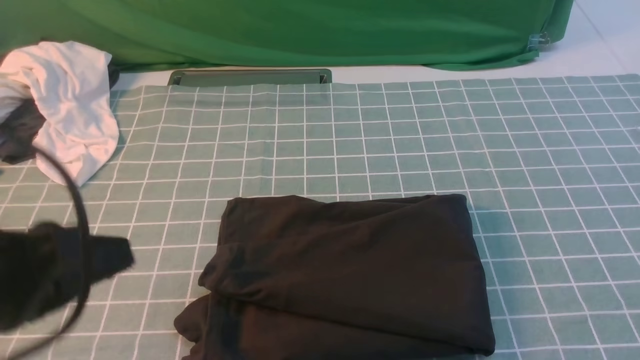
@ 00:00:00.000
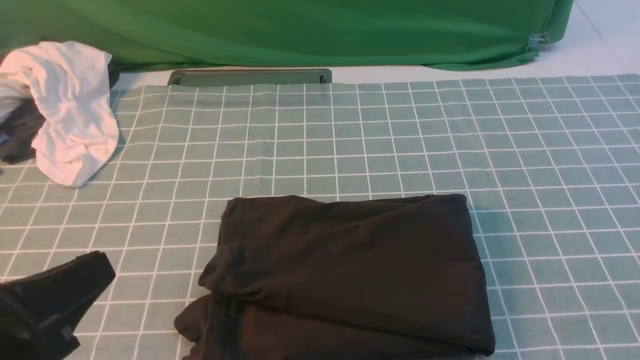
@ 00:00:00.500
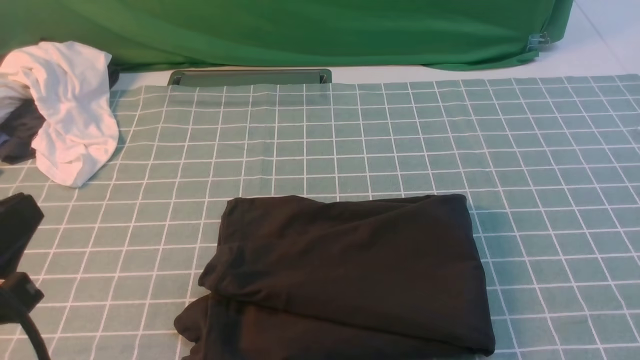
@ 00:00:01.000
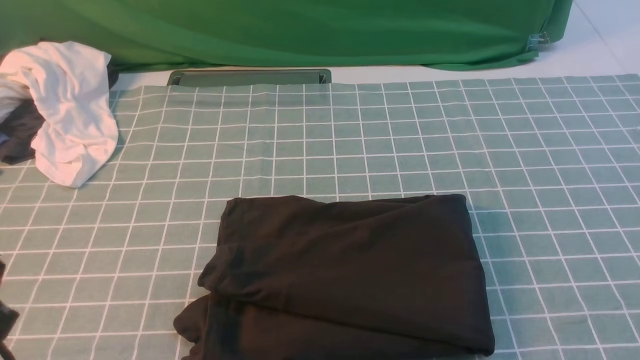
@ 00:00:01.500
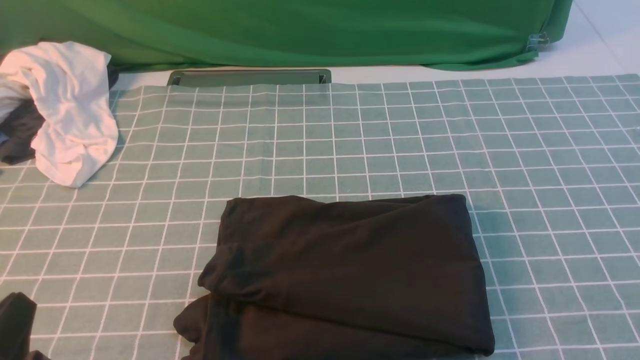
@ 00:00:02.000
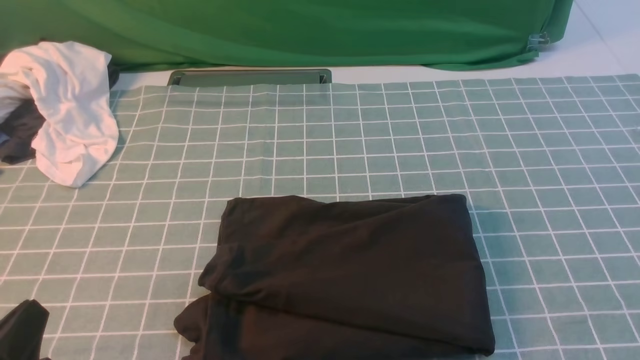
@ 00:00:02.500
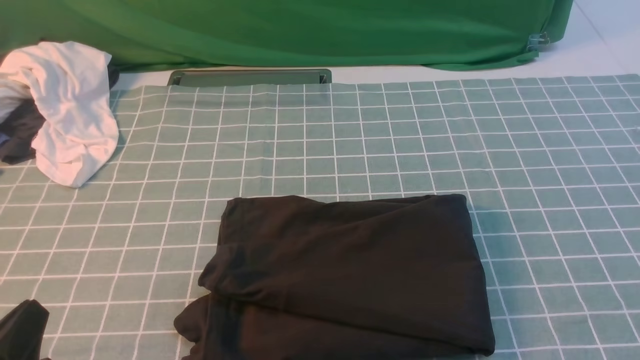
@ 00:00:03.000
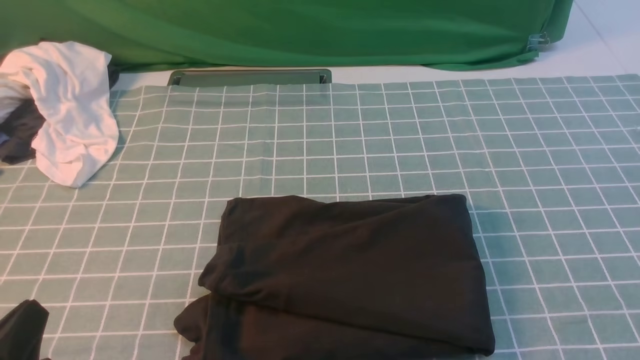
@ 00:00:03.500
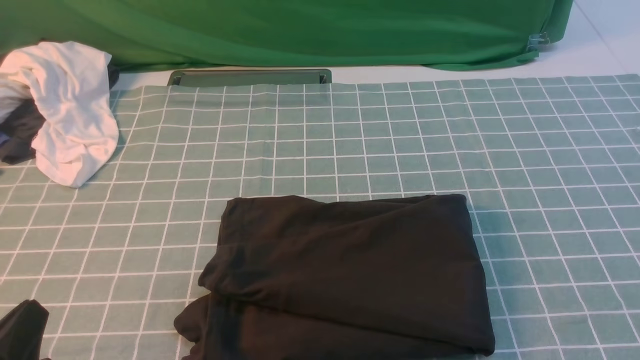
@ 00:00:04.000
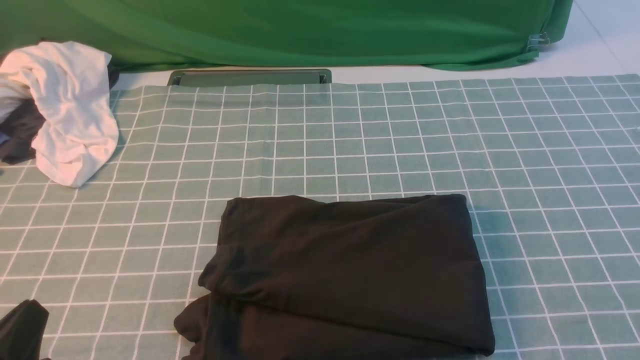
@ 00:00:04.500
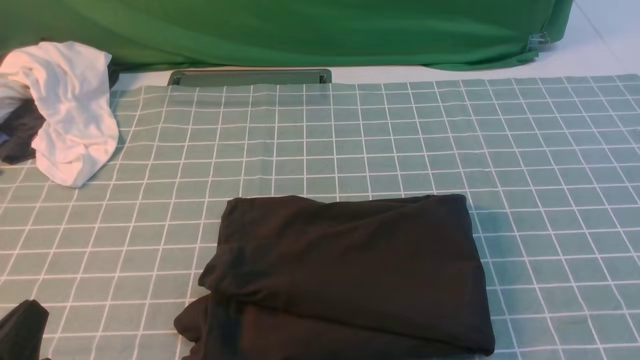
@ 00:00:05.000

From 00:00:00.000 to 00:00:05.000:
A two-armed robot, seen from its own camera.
From 00:00:00.000 to 00:00:02.500: The left gripper shifts some 15 cm downward and backward.
From 00:00:02.500 to 00:00:05.000: Both grippers stay put.

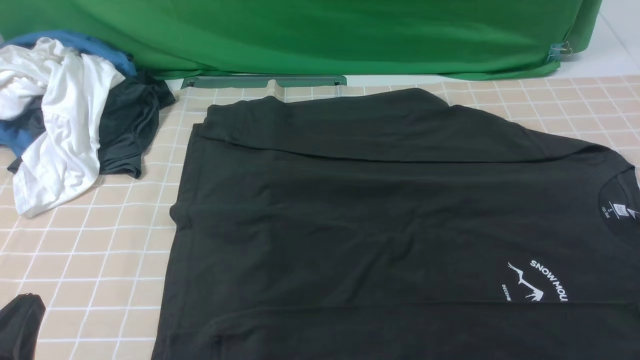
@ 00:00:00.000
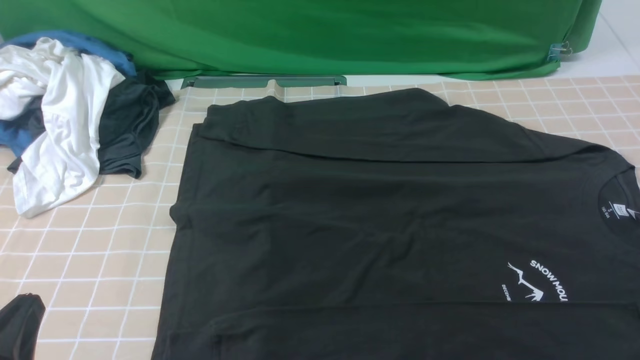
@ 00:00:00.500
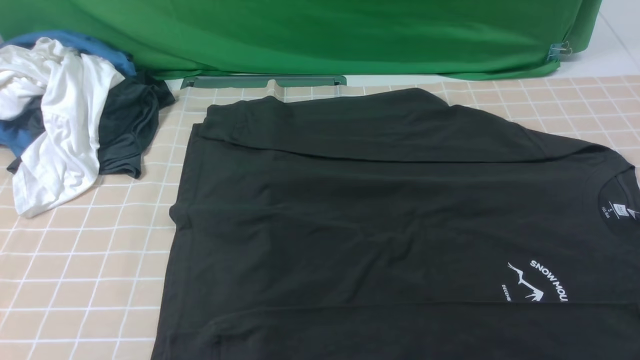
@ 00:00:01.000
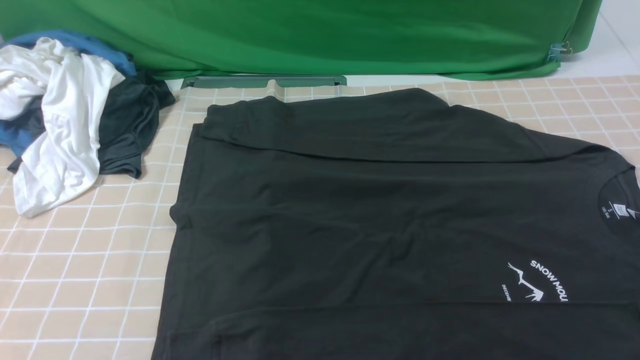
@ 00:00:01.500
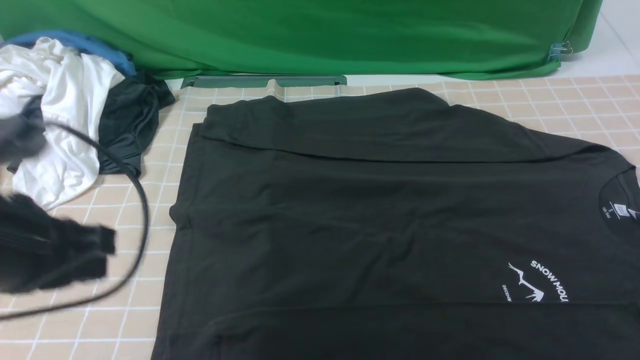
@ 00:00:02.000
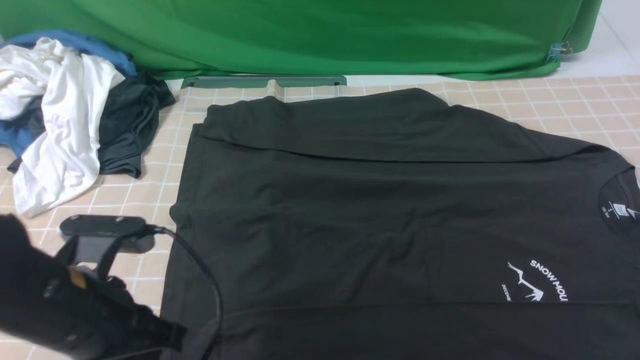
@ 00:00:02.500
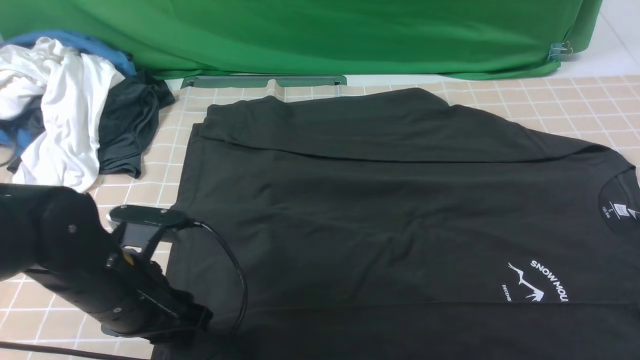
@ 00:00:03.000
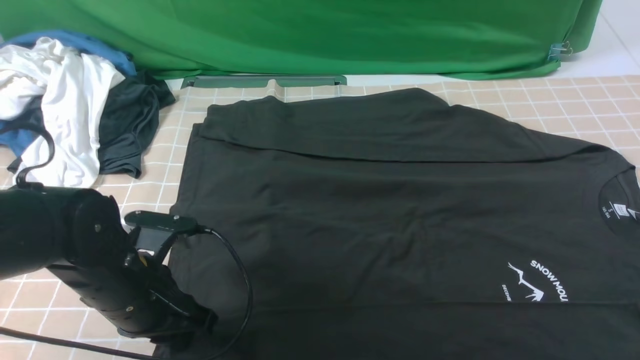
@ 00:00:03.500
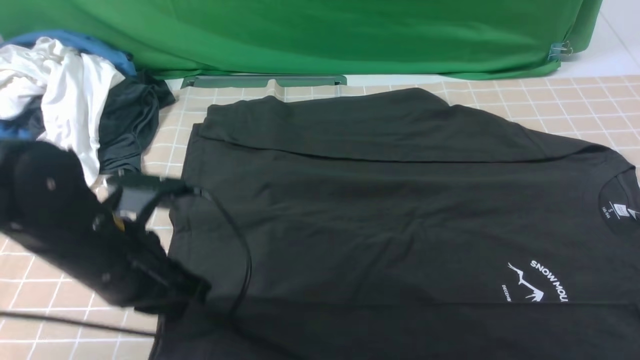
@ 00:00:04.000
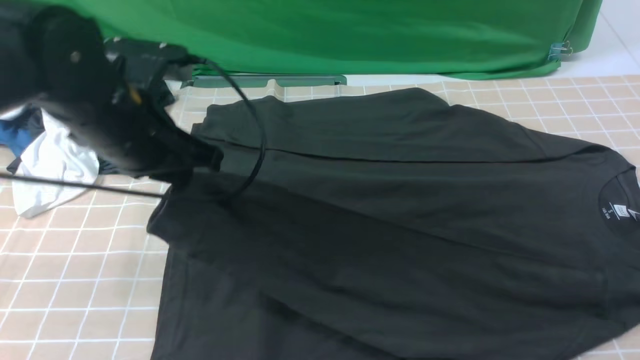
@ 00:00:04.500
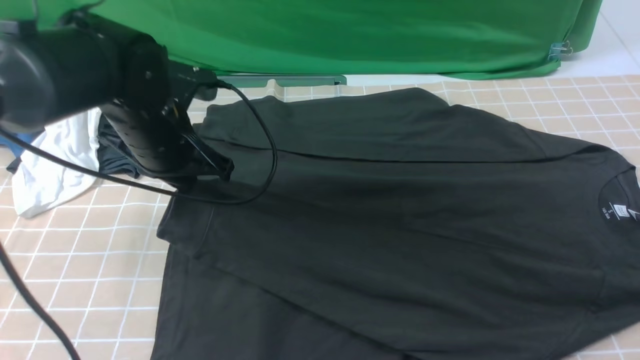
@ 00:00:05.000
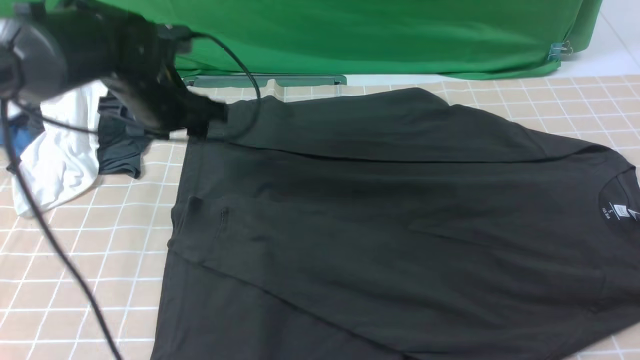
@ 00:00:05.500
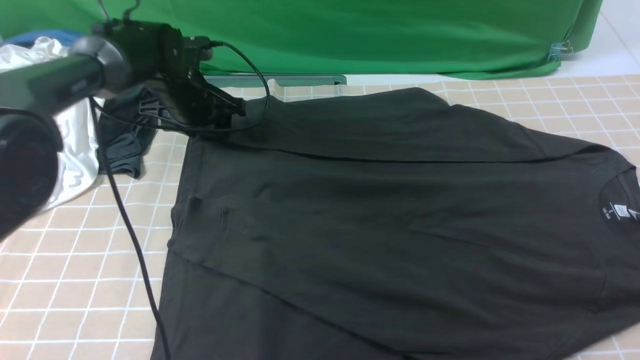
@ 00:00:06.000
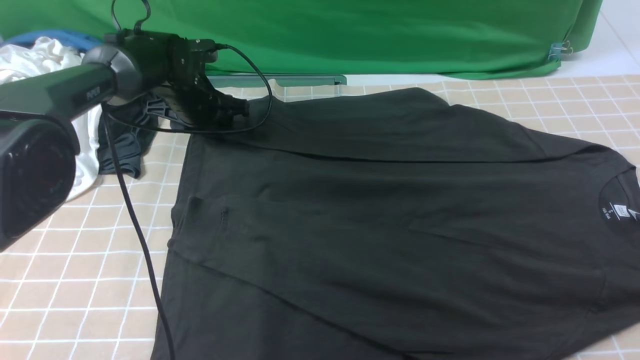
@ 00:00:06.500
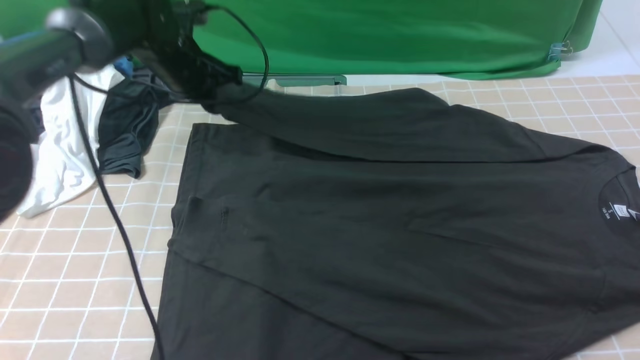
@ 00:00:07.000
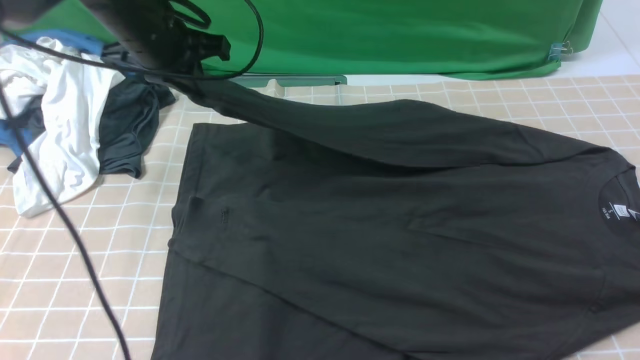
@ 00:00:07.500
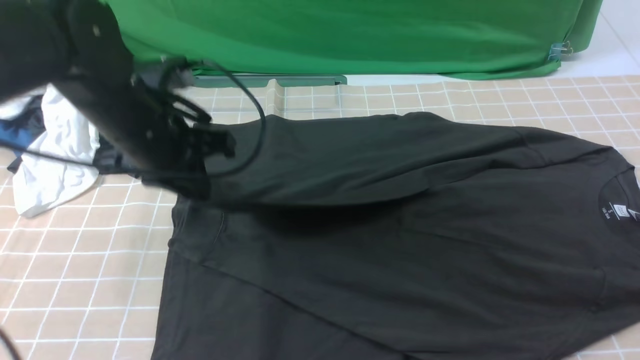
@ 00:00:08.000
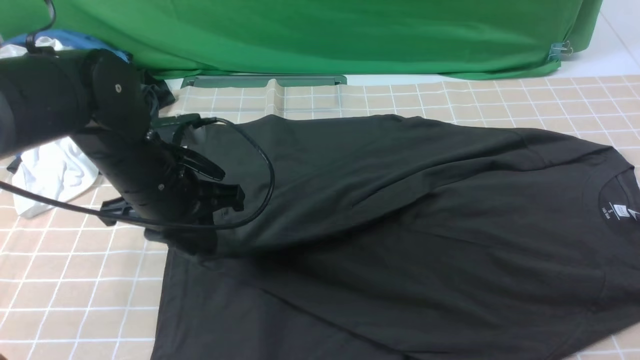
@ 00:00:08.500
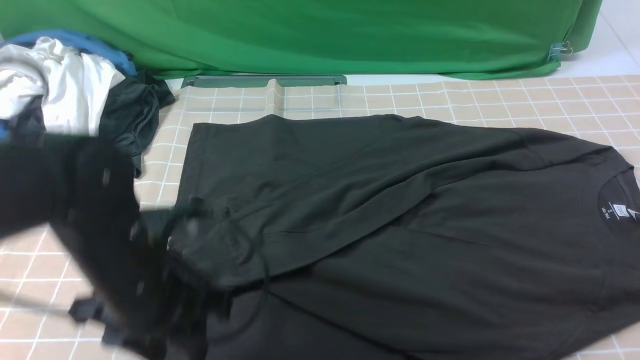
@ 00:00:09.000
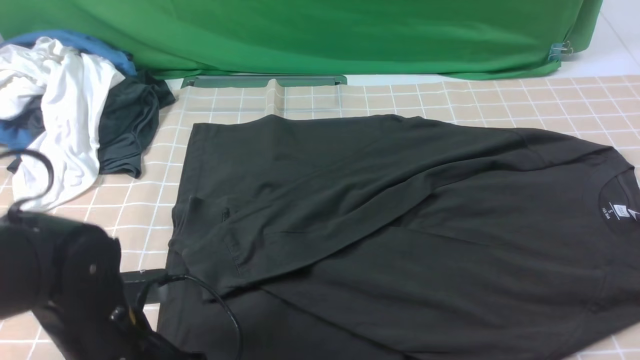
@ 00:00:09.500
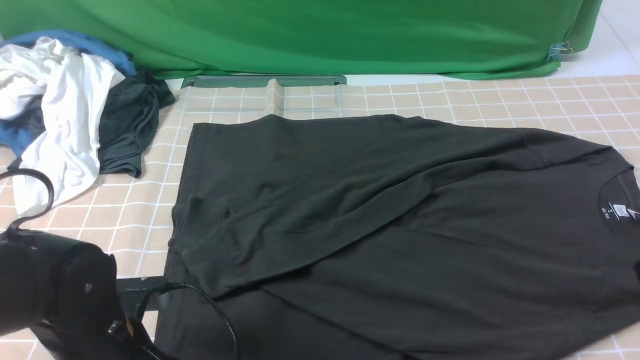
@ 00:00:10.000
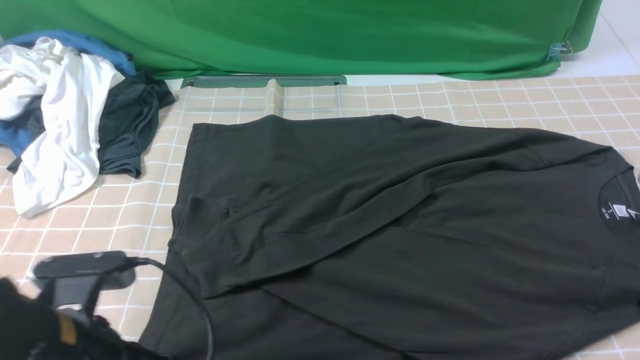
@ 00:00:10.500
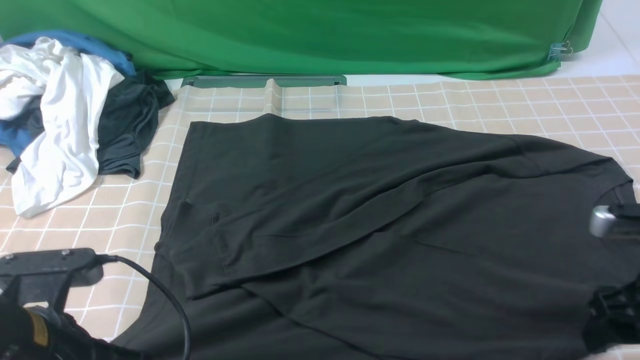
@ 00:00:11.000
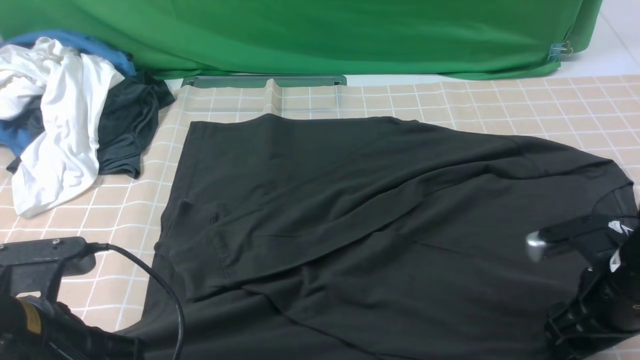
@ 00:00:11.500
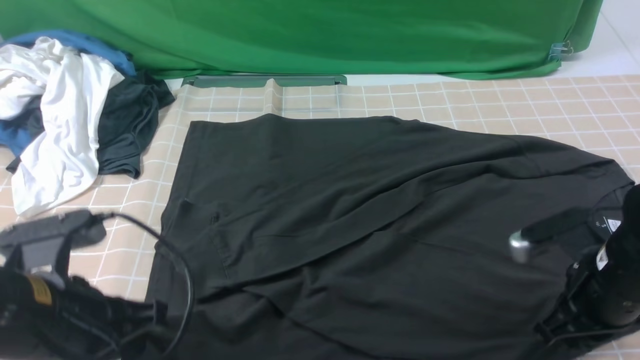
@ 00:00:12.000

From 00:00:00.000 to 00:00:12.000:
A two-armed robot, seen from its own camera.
Step, from 00:00:00.000 to 00:00:03.500: use the left arm to clamp the cuff closest to it.
Step, from 00:00:04.000 to 00:00:05.000: use the left arm to drag and place the cuff at the centered position on the left edge of the fabric.
Step, from 00:00:05.500 to 00:00:06.500: use the left arm to clamp the cuff farthest from it.
Step, from 00:00:07.000 to 00:00:08.500: use the left arm to drag and drop the cuff onto the cuff closest to the left arm.
Step, from 00:00:09.000 to 00:00:11.500: use both arms simultaneously to clamp the lower edge of the clothing fabric.
From 00:00:00.000 to 00:00:02.000: The left gripper is displaced forward and upward by some 15 cm.
From 00:00:02.000 to 00:00:04.000: The left gripper moves downward, forward and to the right, roughly 10 cm, and opens, then closes once more.
From 00:00:04.000 to 00:00:06.000: The left gripper heads forward, covering roughly 25 cm, and opens.
From 00:00:06.000 to 00:00:08.000: The left gripper shifts about 20 cm backward and upward, and closes up.
From 00:00:08.000 to 00:00:10.000: The right gripper changes place by some 5 cm; the left gripper heads backward and downward, covering approximately 20 cm, and opens, then closes again.
From 00:00:10.000 to 00:00:12.000: The right gripper is displaced downward and forward by roughly 15 cm, and opens, then closes once more; the left gripper is displaced upward by approximately 10 cm.

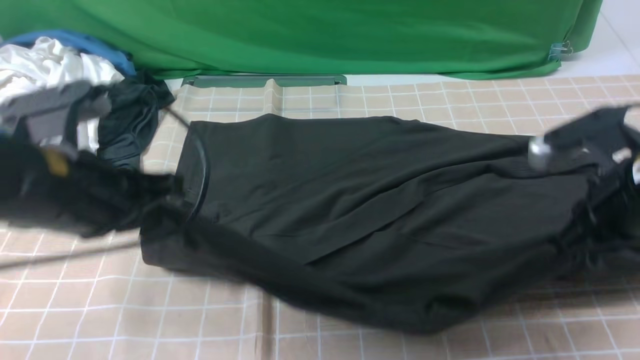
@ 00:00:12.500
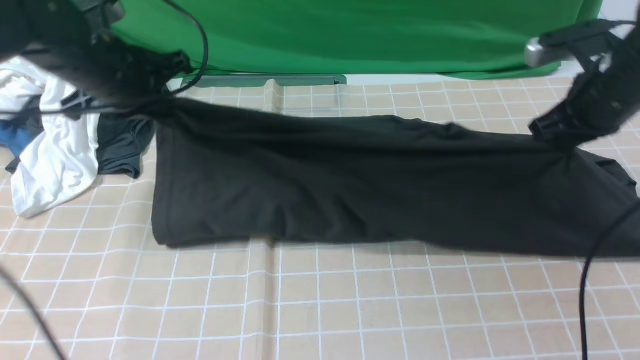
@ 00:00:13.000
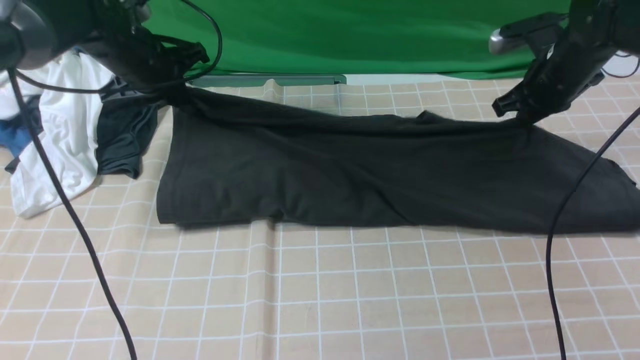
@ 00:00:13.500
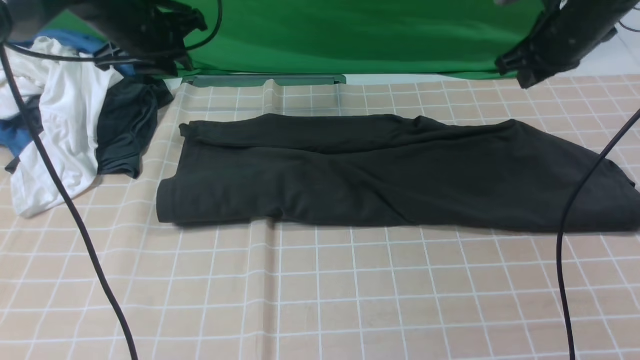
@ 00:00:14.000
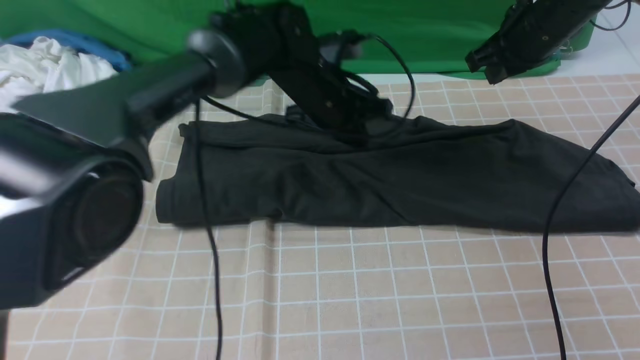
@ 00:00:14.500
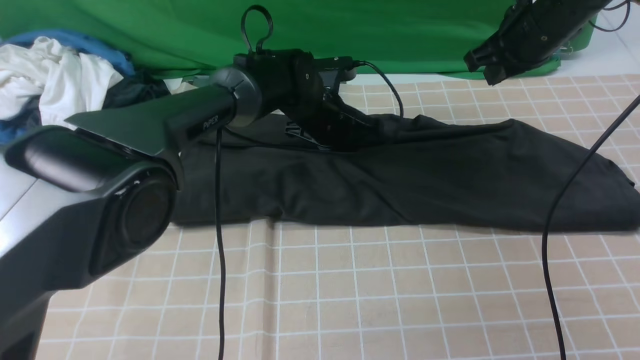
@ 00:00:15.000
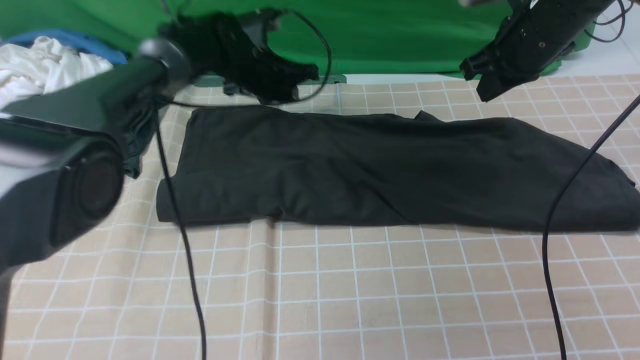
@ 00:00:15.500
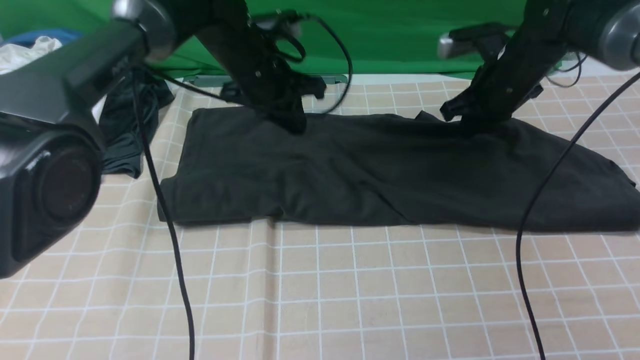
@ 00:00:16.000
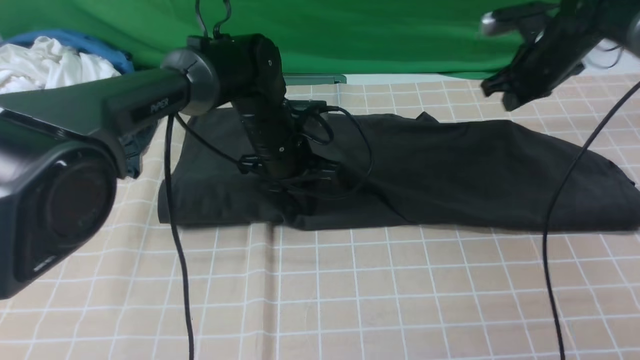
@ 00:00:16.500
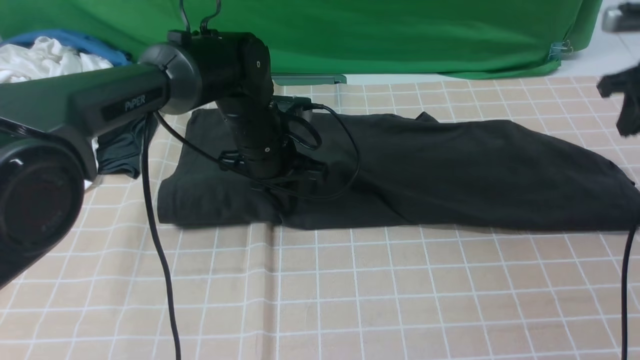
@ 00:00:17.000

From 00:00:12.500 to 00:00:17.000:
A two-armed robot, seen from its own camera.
Step, from 00:00:12.500 to 00:00:13.500: use both arms to drag the lower edge of the fabric forward and fold it over the upper edge.
From 00:00:12.500 to 00:00:14.500: The right gripper heads forward, covering roughly 20 cm; the left gripper shifts about 30 cm forward, to the right and downward.
From 00:00:14.500 to 00:00:17.000: The right gripper is displaced to the right by approximately 15 cm; the left gripper ends up about 5 cm from where it was.
